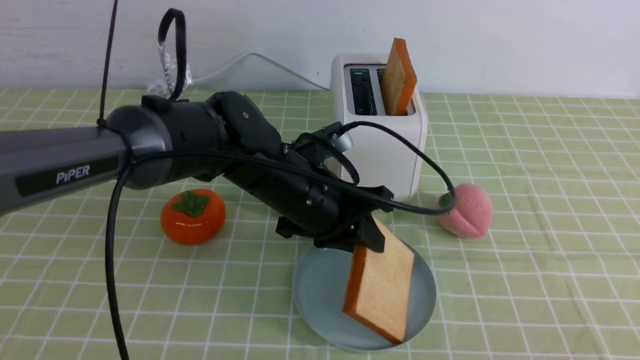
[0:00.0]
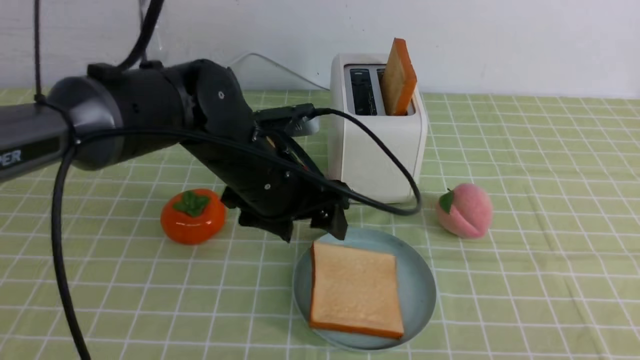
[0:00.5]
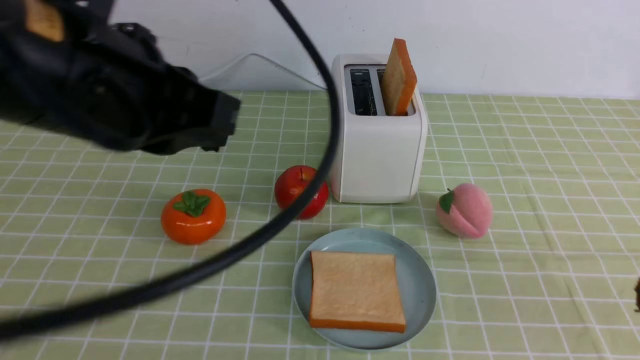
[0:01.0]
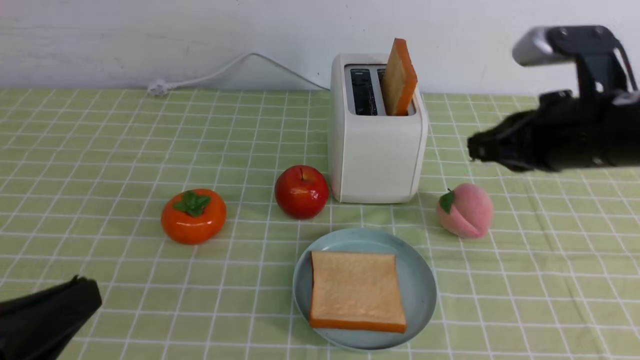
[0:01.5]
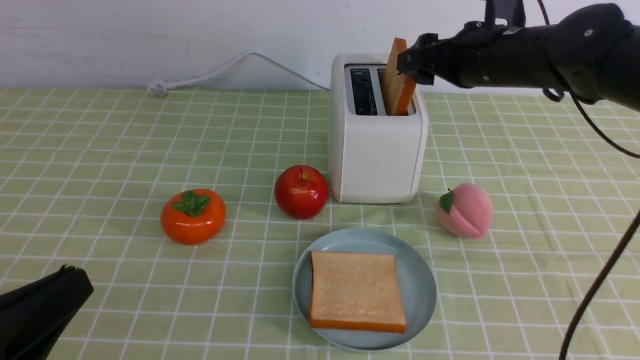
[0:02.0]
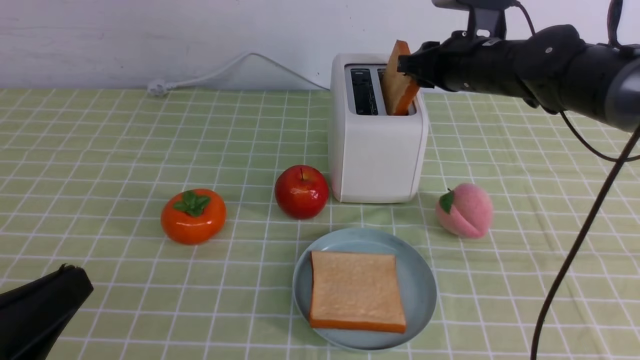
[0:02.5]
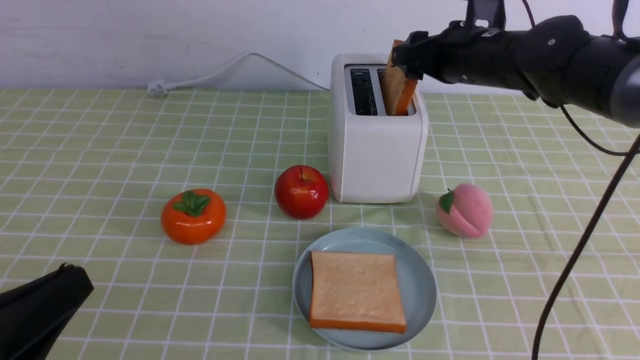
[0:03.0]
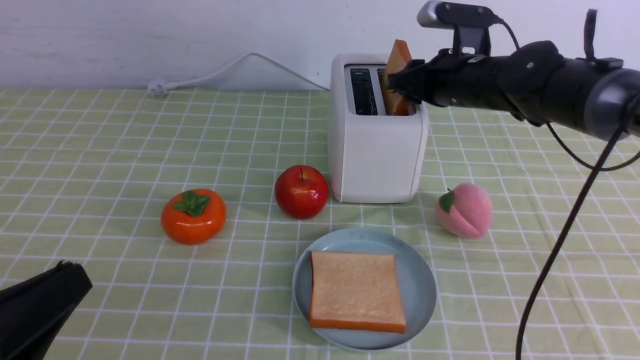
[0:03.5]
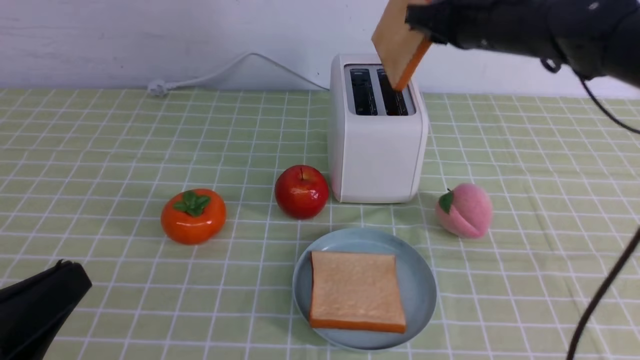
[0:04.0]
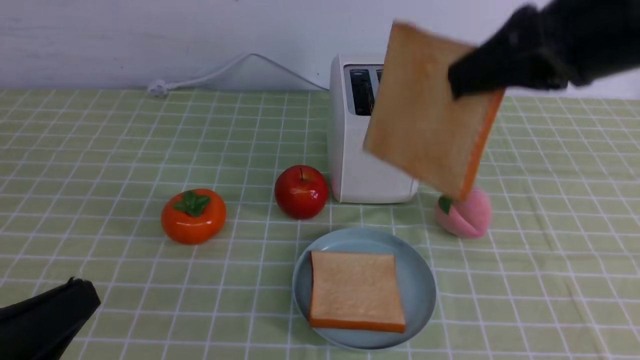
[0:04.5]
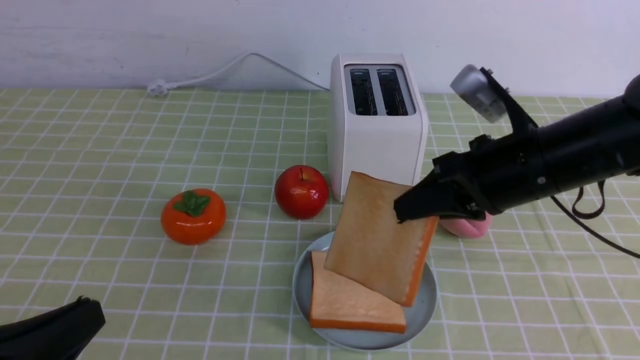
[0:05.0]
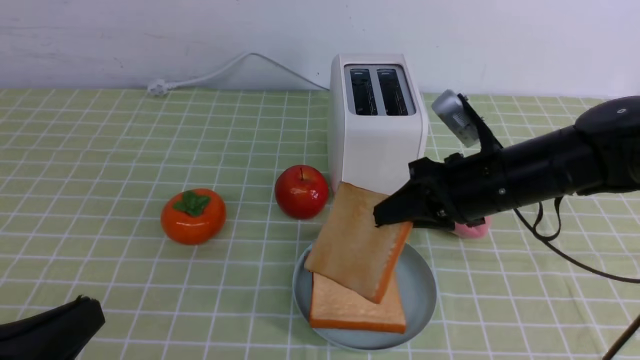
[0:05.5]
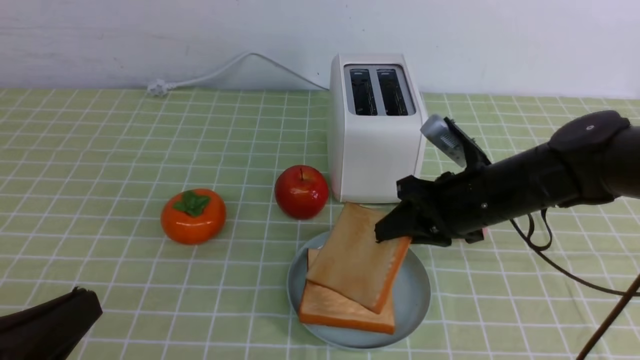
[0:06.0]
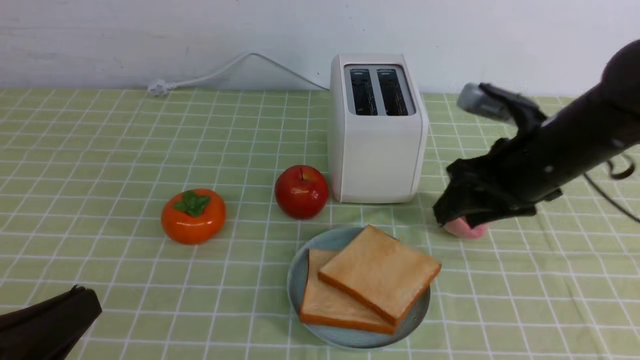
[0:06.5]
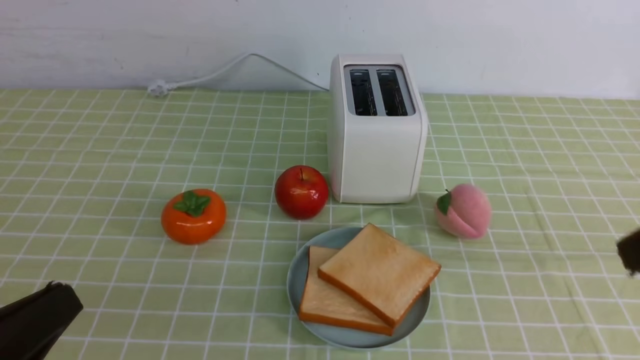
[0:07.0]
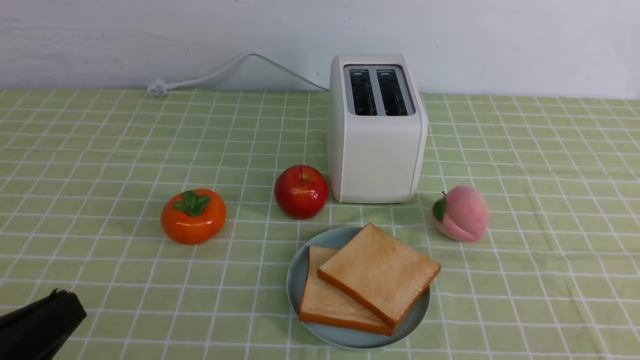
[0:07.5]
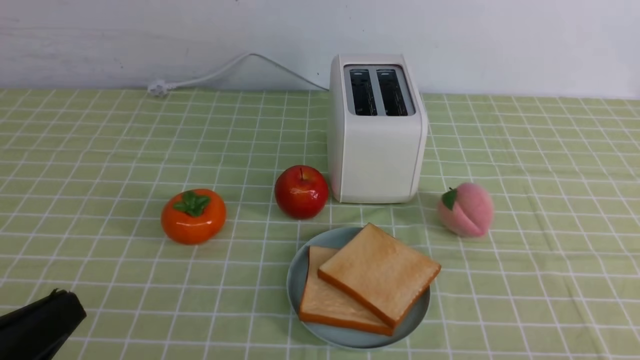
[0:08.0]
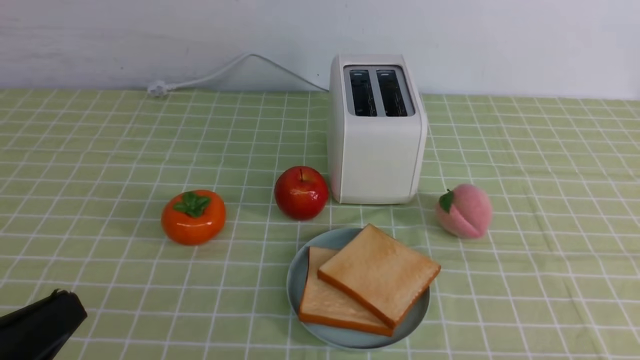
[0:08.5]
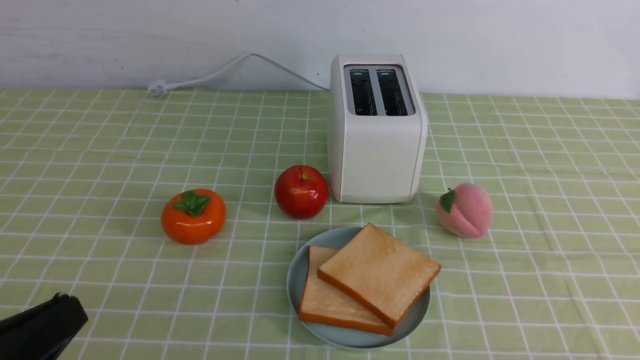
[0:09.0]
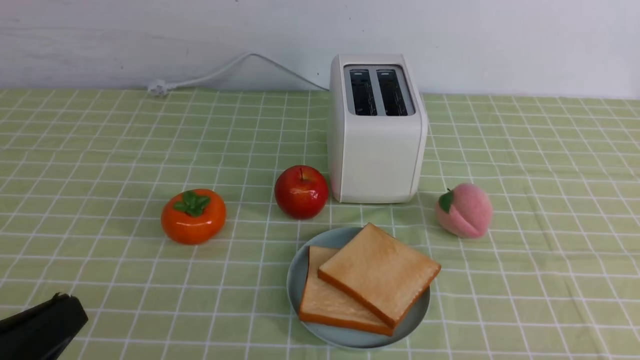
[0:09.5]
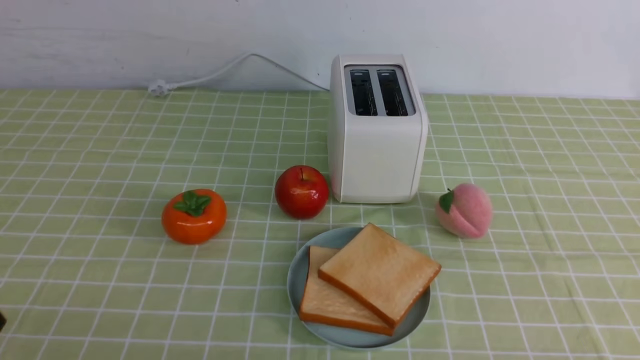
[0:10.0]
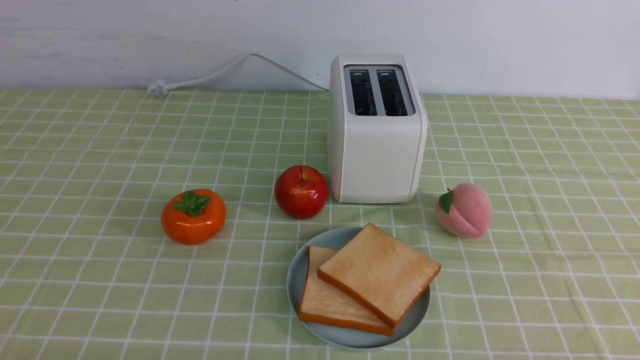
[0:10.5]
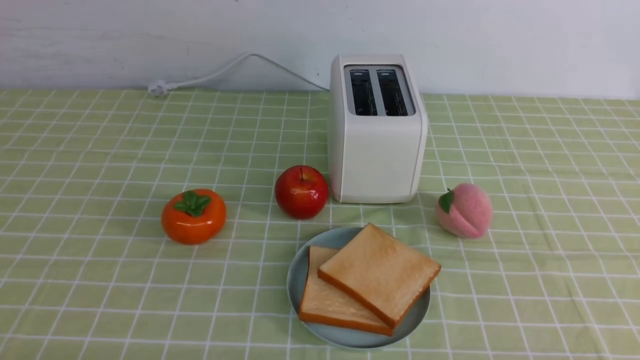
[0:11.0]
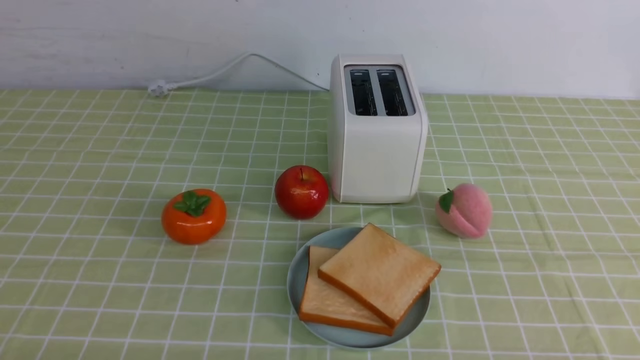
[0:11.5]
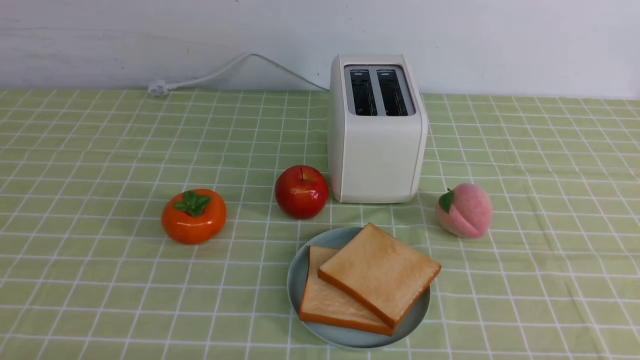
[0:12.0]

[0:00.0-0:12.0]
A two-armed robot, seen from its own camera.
Task of the whole recording: take toasted bread from bread machine on green coffee tablecloth place on plate.
Step, 0:01.0 to 0:04.0: use the right arm to take out a slice of bread.
Step, 0:04.5 to 0:06.5: use the right arm to put a slice of bread into the plate.
0:00.0 to 0:02.0: The right gripper travels forward by about 40 cm, and opens. The left gripper is displaced backward and to the left by approximately 35 cm, and opens, then closes again.
0:02.0 to 0:04.0: The right gripper closes its fingers.
0:04.0 to 0:06.0: The right gripper travels downward and backward by some 15 cm.
0:06.0 to 0:08.0: The right gripper heads backward, covering roughly 30 cm, and opens, then closes again.

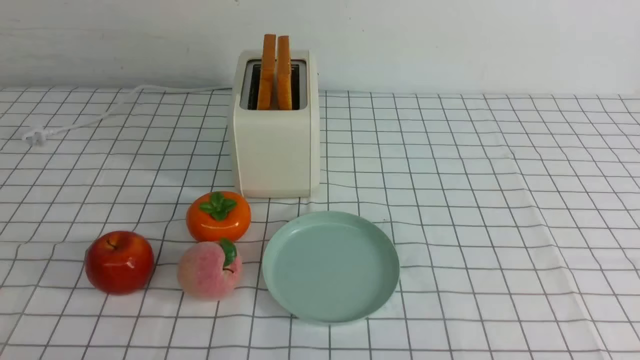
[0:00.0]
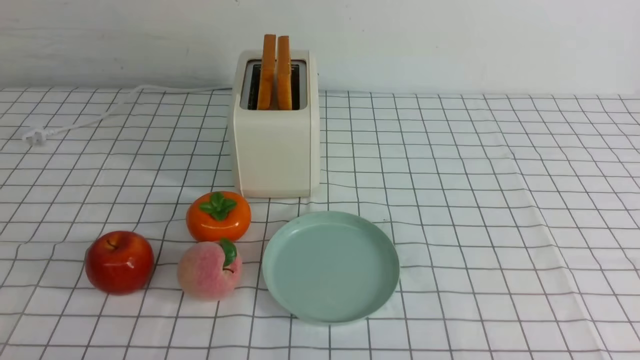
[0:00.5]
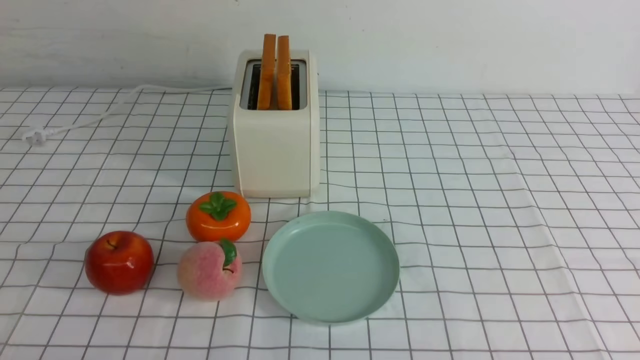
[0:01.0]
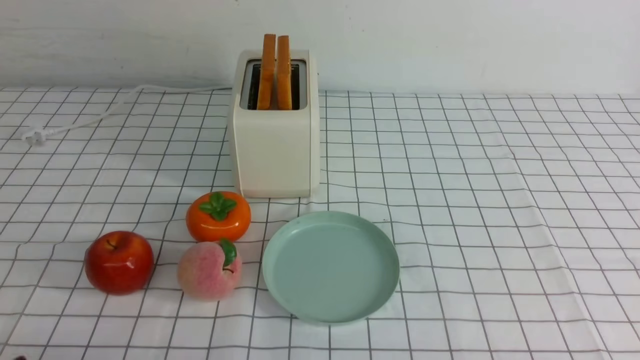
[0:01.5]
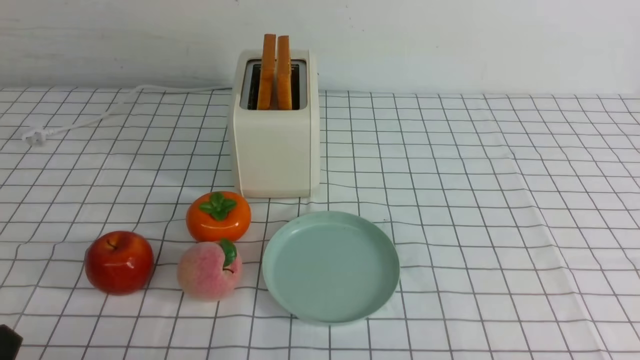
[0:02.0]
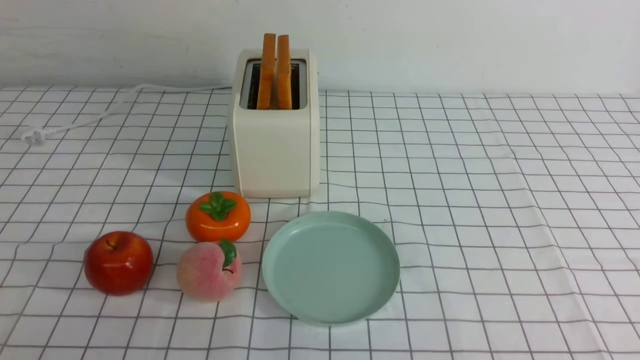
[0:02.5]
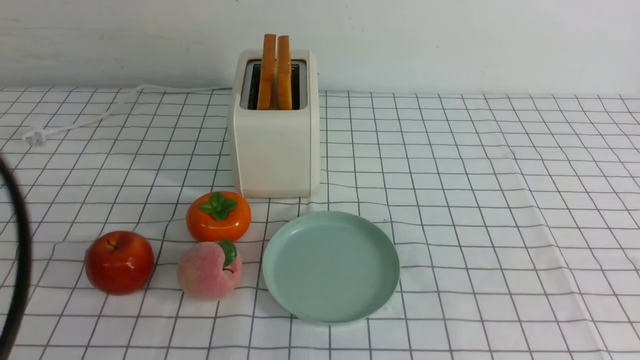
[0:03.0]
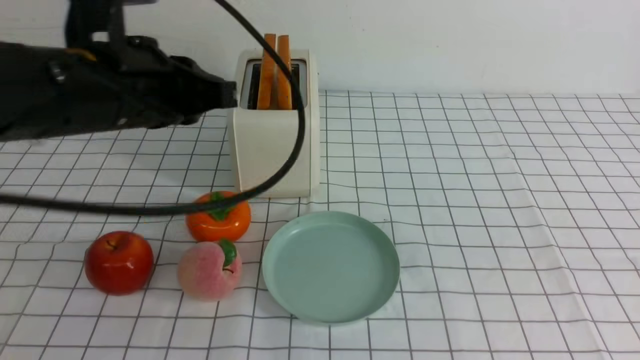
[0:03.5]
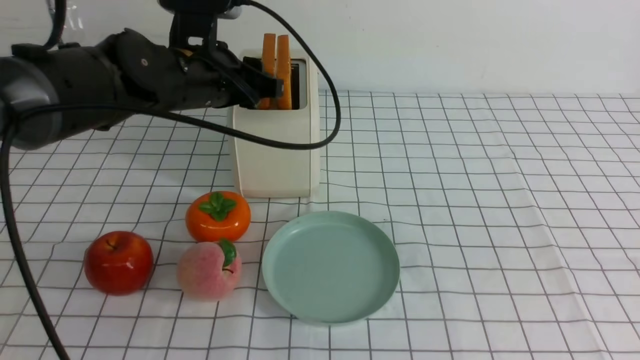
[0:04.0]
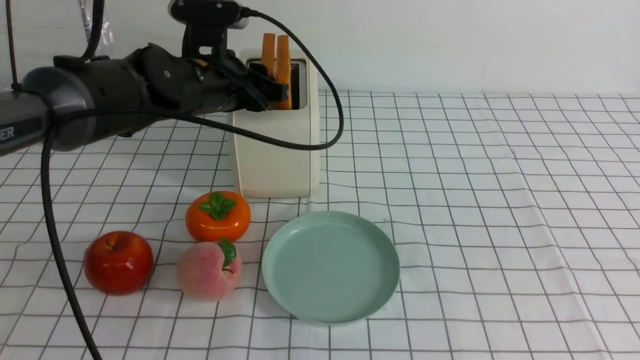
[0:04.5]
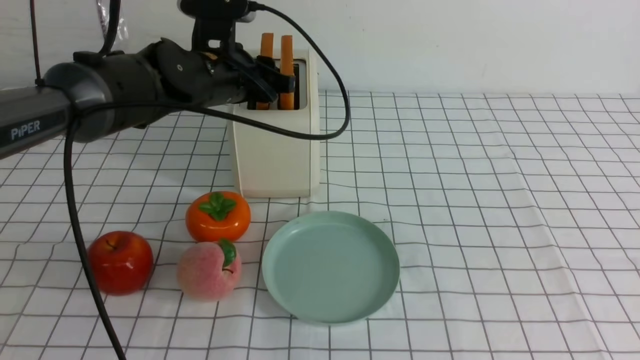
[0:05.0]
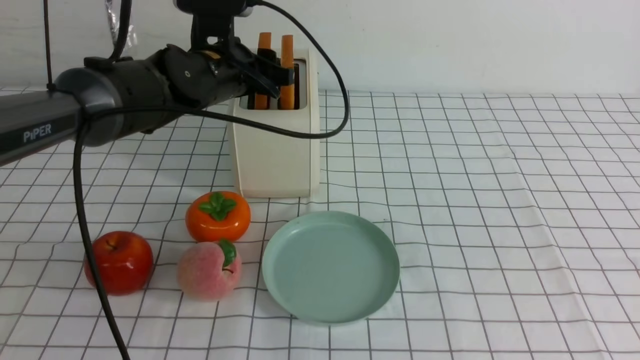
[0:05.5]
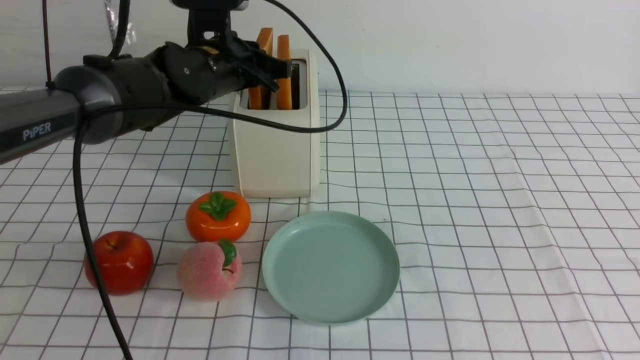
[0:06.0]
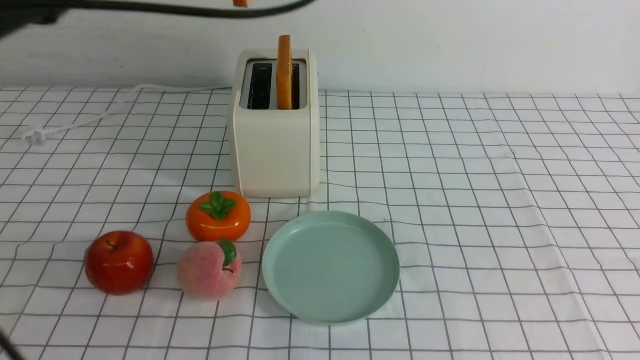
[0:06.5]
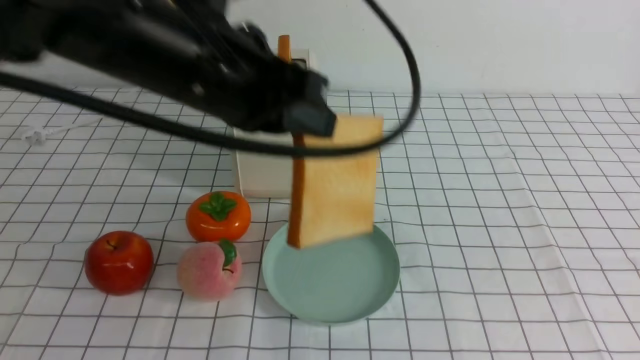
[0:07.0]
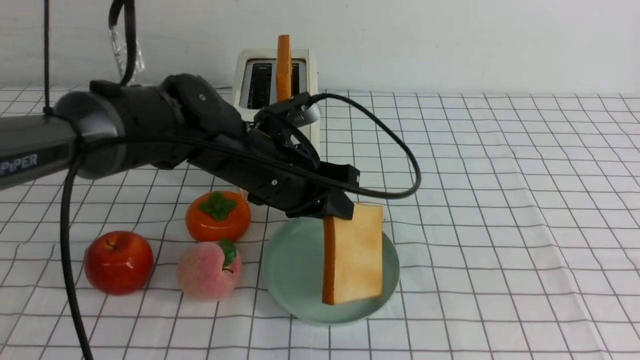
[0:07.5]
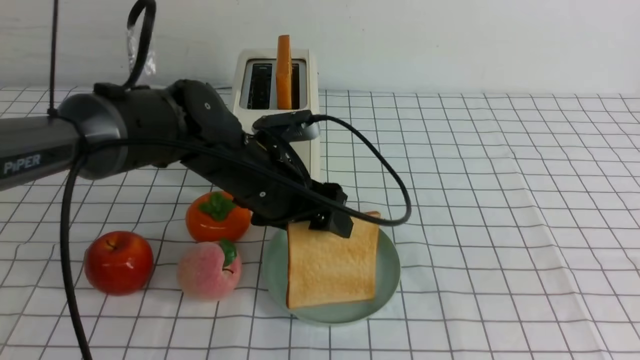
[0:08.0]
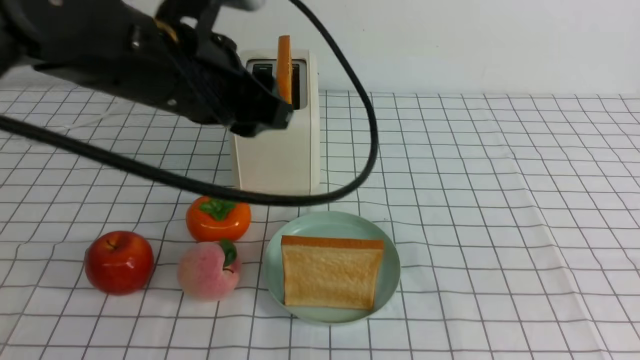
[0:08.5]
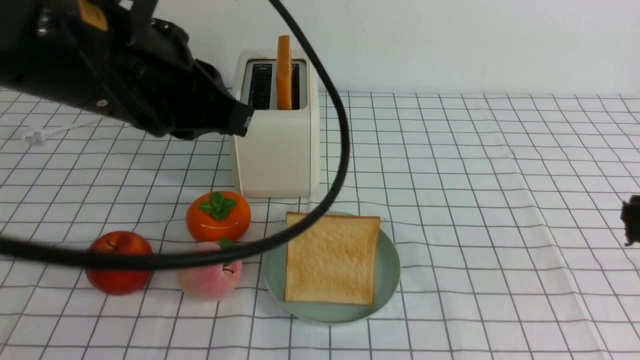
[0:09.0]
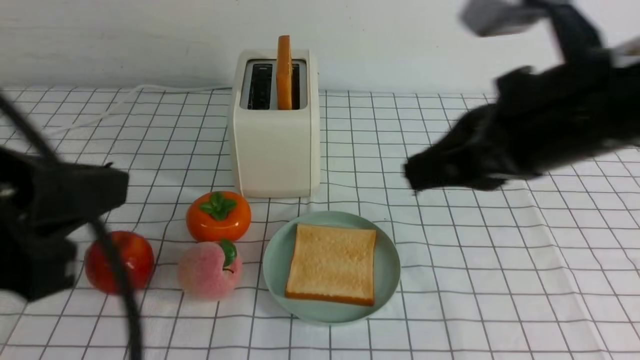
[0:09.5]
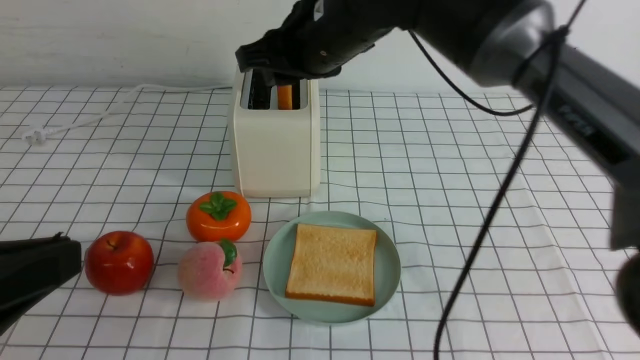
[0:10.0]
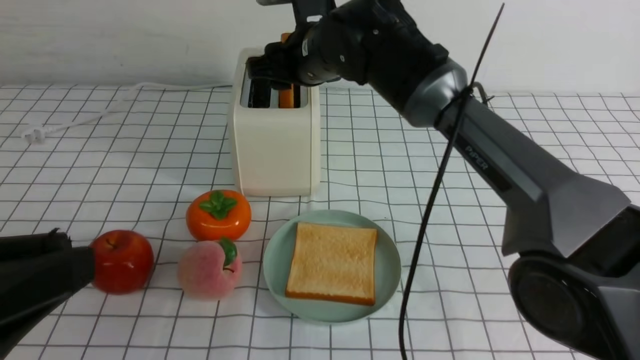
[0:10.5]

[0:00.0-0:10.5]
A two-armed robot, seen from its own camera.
Task of the whole recording: take toasted bread from bread machine on white checkered table place on plate.
Step, 0:00.0 to 0:06.0: use the left arm to take out a slice of bread.
Step, 0:06.5 to 0:09.0: use the left arm to put a slice of bread into the empty plate.
0:02.0 to 0:04.0: The left gripper shifts some 35 cm forward, and closes, then opens again. The right gripper moves upward, some 25 cm, and closes up.
0:04.0 to 0:06.5: The left gripper shifts approximately 15 cm upward, and closes.
0:06.5 to 0:08.5: The left gripper goes roughly 10 cm backward and downward, and opens up.
0:08.5 to 0:10.5: The right gripper heads forward and to the left, covering some 50 cm, and opens up, while the left gripper shifts about 25 cm backward and to the left, and closes and opens again.
